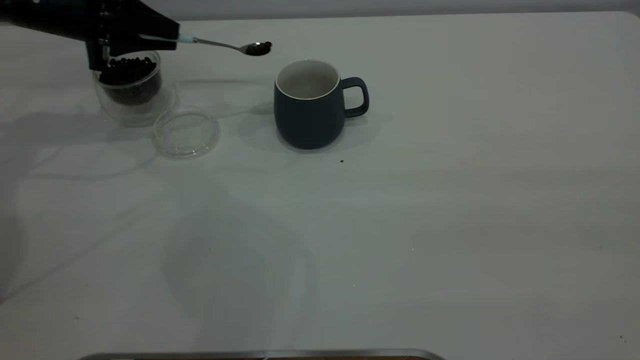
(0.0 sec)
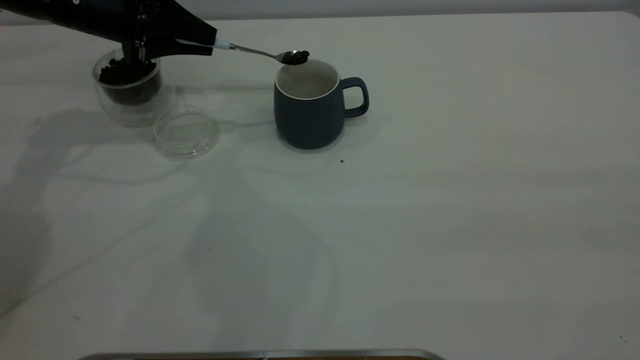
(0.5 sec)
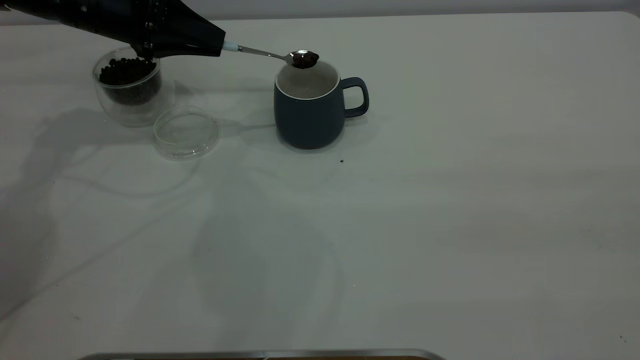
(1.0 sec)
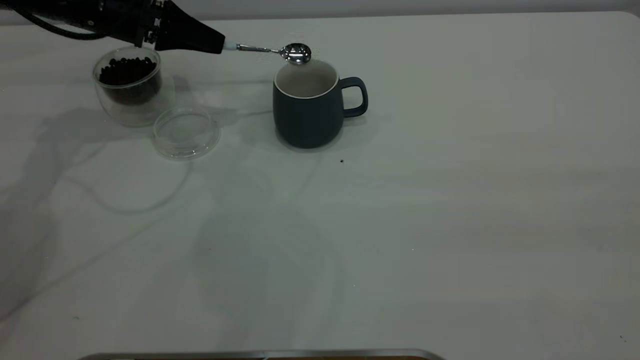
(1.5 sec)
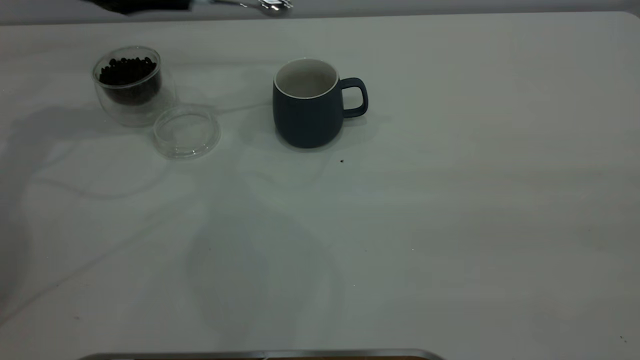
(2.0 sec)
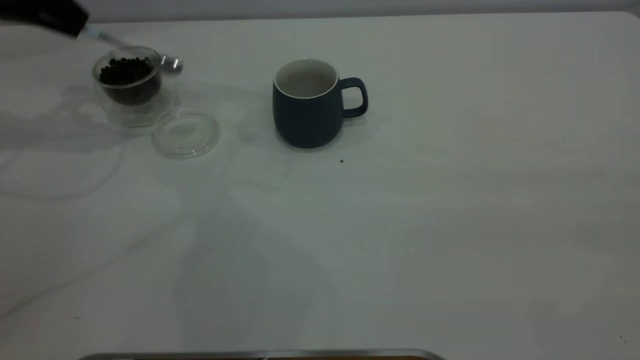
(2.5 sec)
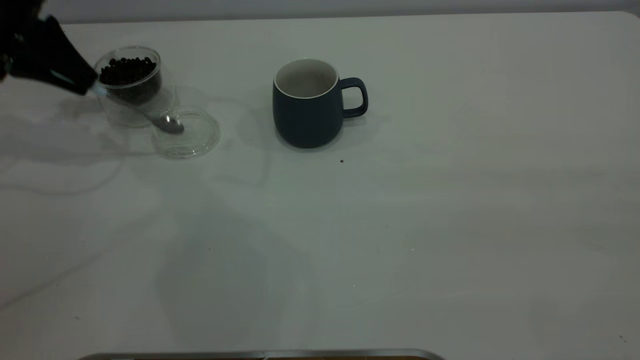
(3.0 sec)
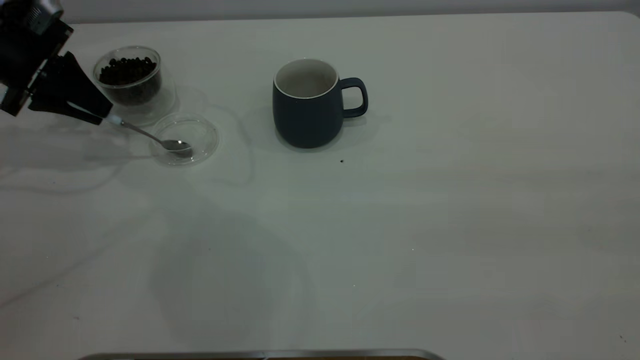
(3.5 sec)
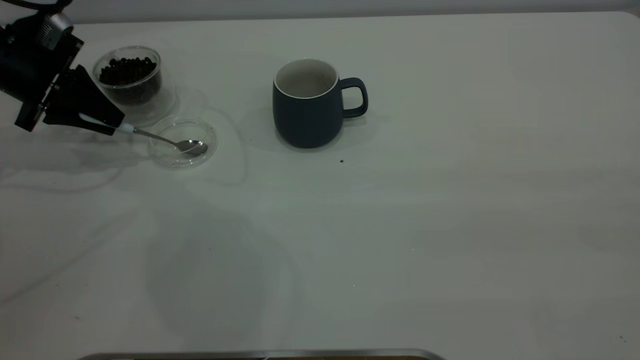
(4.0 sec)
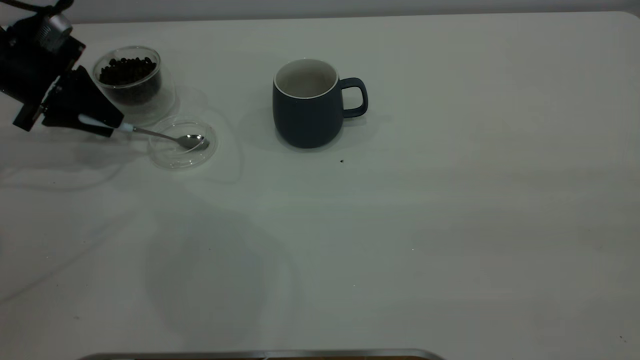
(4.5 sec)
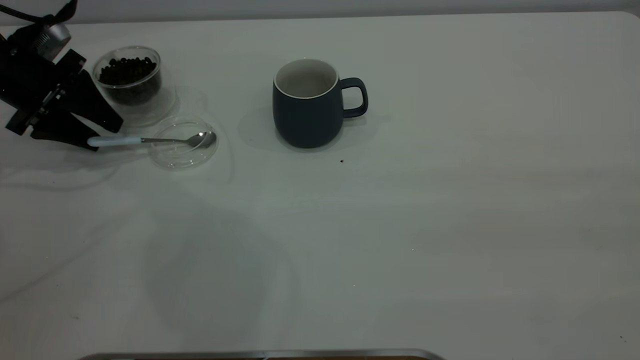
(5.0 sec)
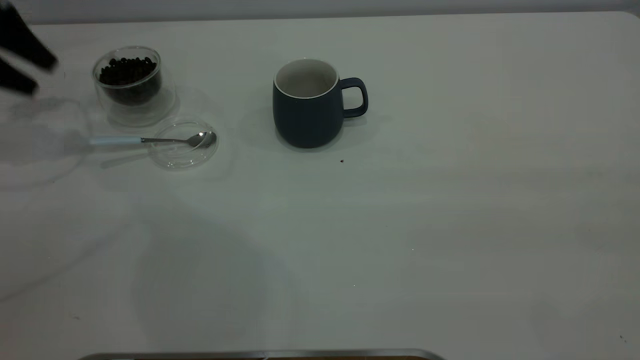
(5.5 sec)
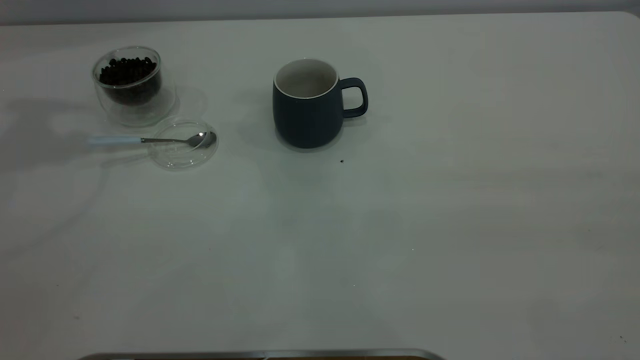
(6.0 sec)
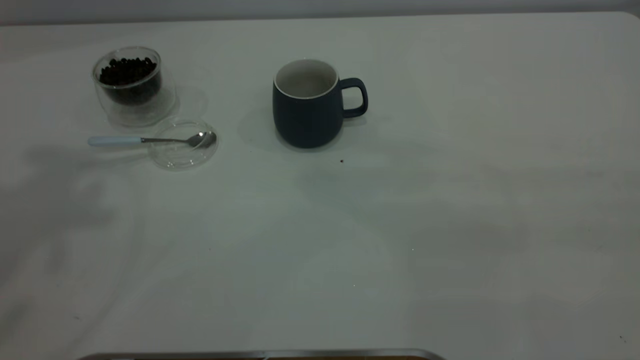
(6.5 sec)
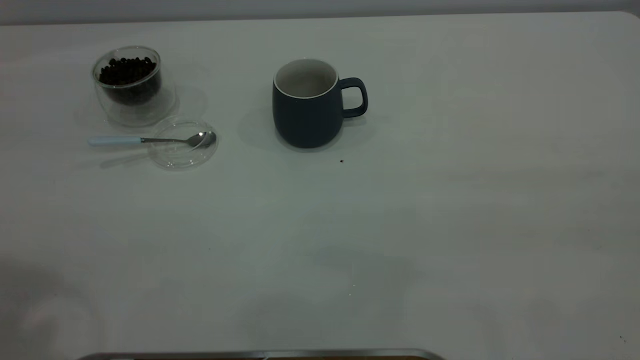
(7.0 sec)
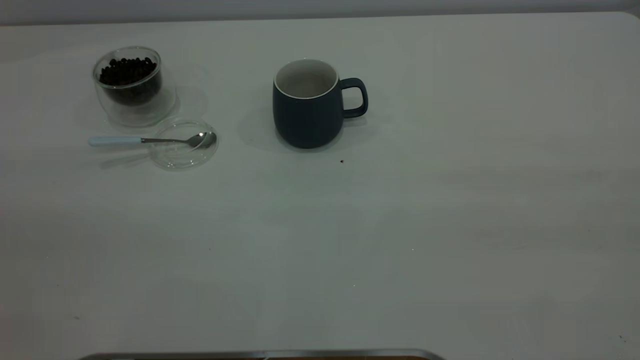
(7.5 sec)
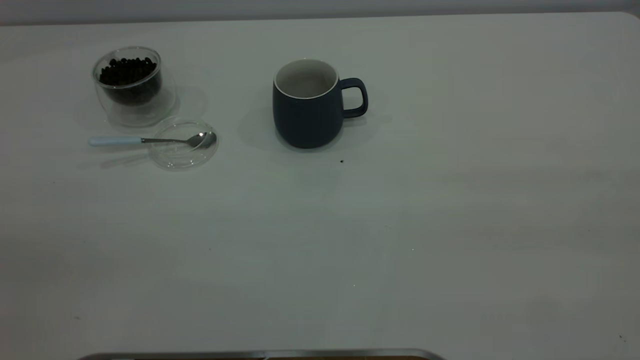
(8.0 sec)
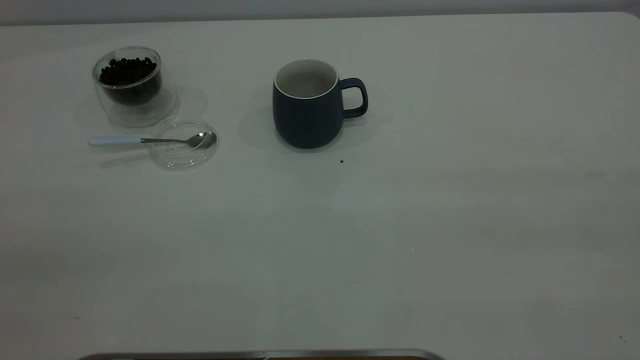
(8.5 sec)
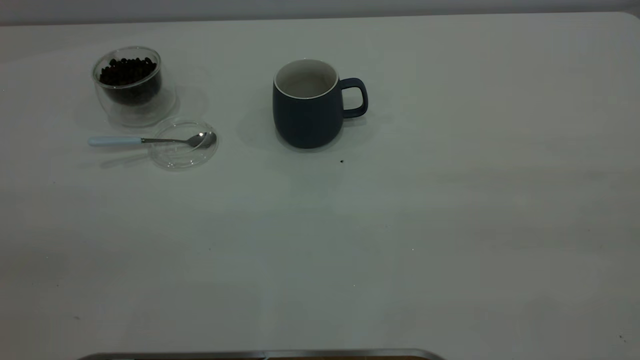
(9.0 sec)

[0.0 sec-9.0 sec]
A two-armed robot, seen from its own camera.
Task of the whole recording: the right gripper place the grey cup in the center of the table, the left gripper take the blue spoon from the cup lid and scoop out the coffee beans from the coffee cup and put them into the grey cup, the left gripper put the spoon back into the cup lid.
Step, 2.0 sec to 5.5 sec: Place the spoon back in its original place.
0.0 sec to 2.0 sec: The left gripper ends up some 5 cm from where it was.
2.0 sec to 4.5 sec: The left gripper travels downward and to the left by approximately 10 cm.
4.5 sec to 7.0 sec: The left gripper heads upward and backward, covering approximately 40 cm, and opens.
